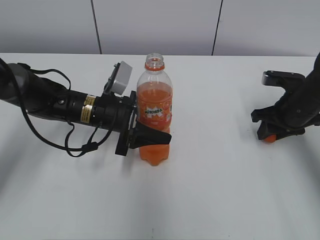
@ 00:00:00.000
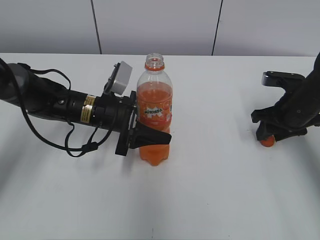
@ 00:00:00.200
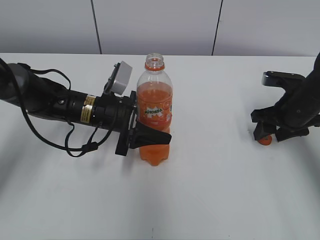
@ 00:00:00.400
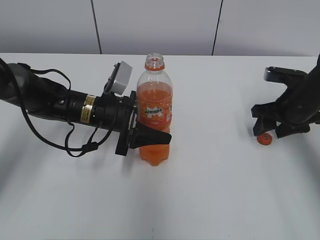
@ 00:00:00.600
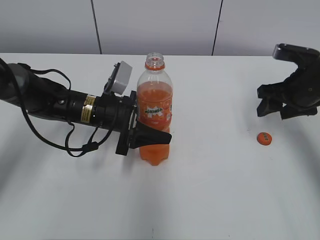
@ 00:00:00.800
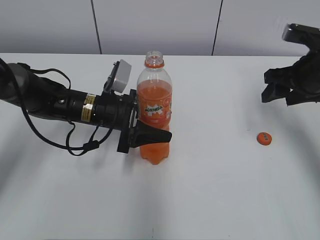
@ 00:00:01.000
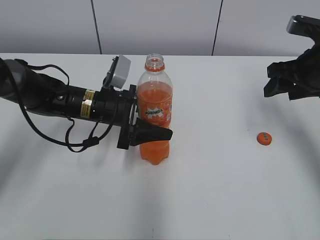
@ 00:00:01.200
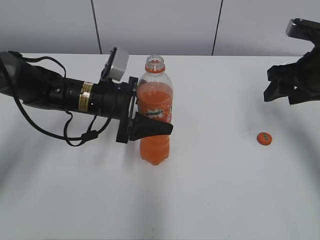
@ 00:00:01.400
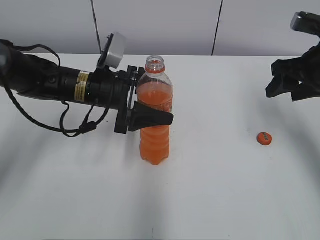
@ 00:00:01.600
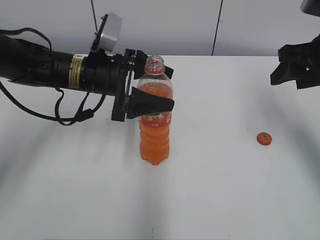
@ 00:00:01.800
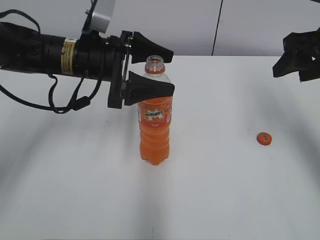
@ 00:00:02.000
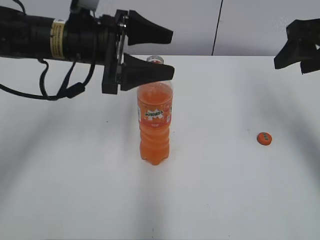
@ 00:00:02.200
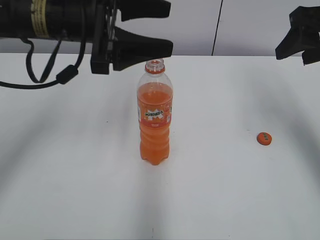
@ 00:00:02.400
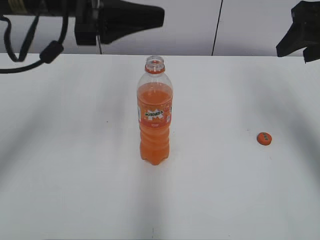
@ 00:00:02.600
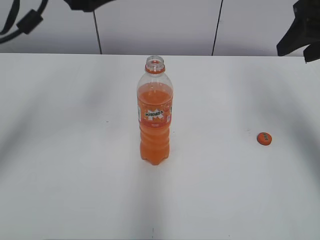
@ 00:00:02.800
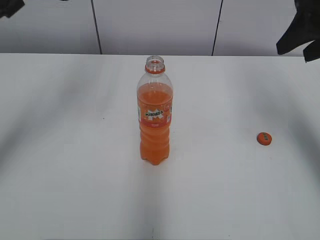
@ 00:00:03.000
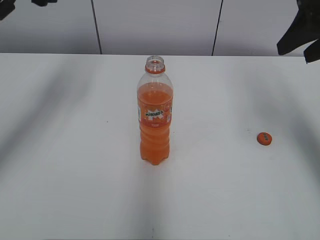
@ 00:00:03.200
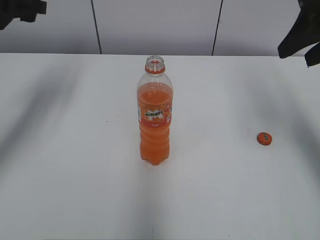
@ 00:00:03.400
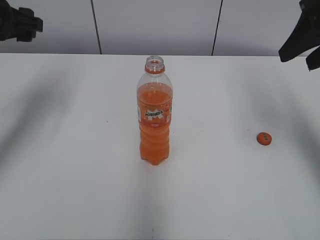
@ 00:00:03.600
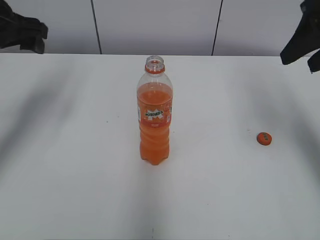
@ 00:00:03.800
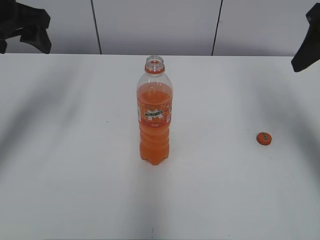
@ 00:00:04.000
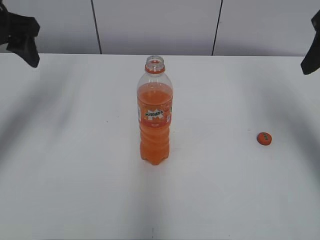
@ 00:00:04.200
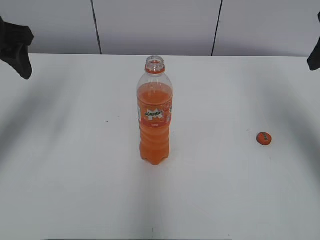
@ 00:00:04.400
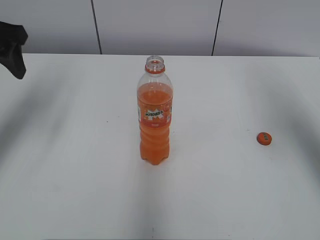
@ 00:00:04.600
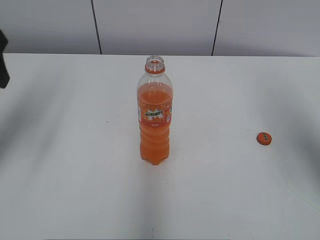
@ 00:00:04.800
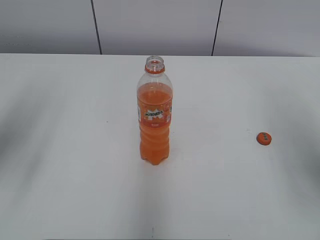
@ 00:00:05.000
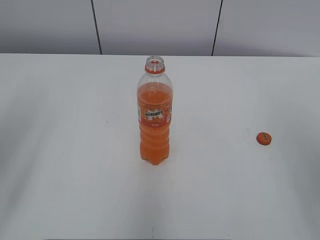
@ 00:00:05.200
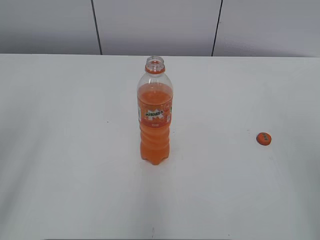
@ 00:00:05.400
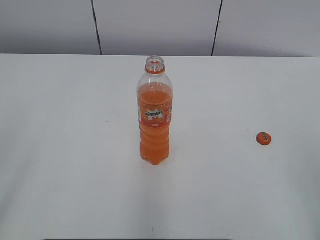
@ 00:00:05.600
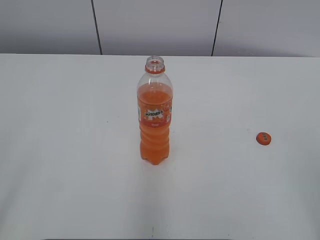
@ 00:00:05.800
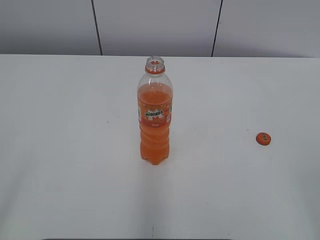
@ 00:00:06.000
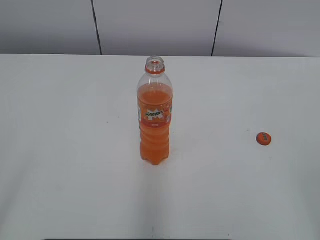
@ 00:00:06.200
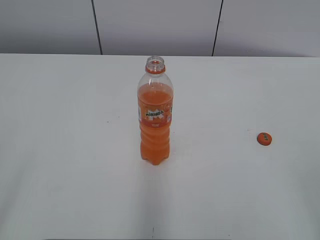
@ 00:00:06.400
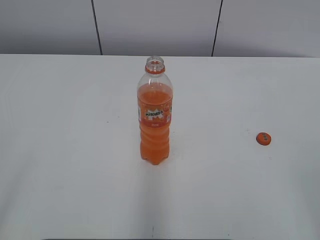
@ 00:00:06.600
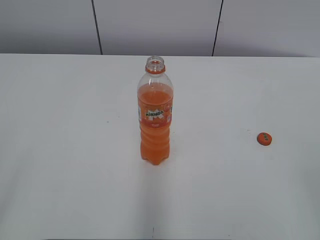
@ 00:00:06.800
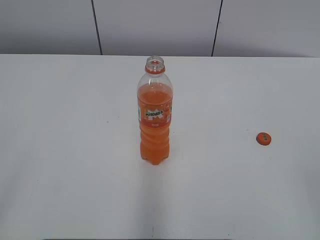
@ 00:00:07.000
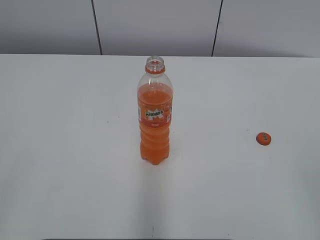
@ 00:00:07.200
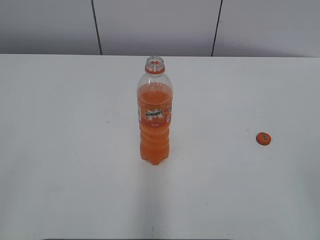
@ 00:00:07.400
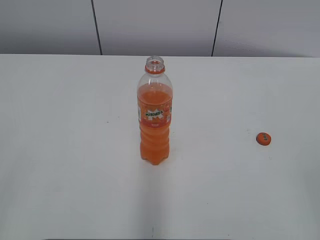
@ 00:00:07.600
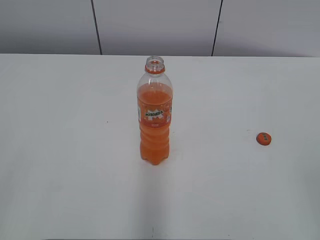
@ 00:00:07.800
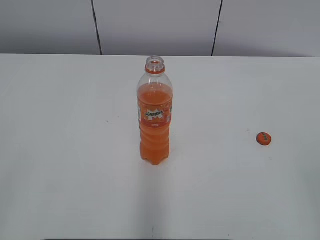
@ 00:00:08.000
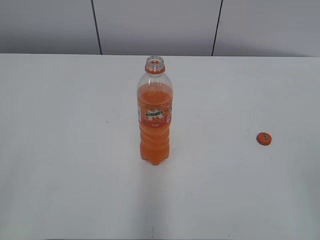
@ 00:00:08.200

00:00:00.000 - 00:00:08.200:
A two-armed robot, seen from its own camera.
00:00:00.000 - 00:00:01.600: The left gripper opens up. The right gripper shifts roughly 10 cm upward, and opens its fingers.
00:00:01.600 - 00:00:03.200: The right gripper is displaced upward by approximately 10 cm. The left gripper goes some 25 cm upward and to the left.
00:00:03.200 - 00:00:05.000: The two grippers go some 15 cm backward.
00:00:05.000 - 00:00:06.600: The grippers both shift backward by approximately 20 cm.
